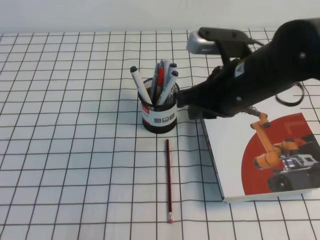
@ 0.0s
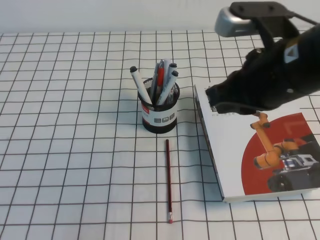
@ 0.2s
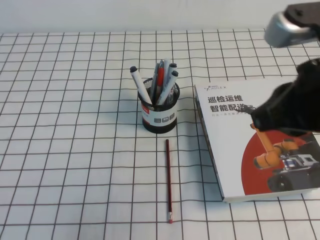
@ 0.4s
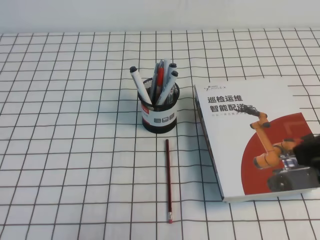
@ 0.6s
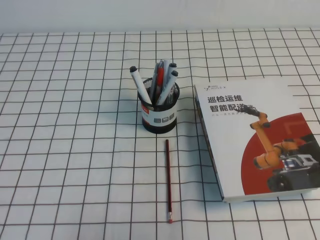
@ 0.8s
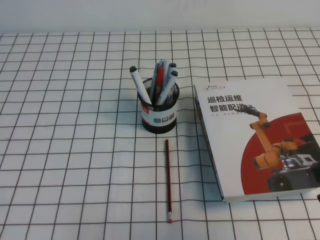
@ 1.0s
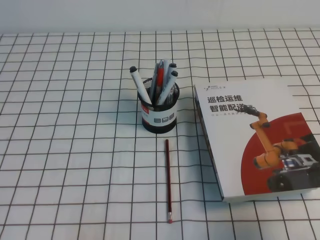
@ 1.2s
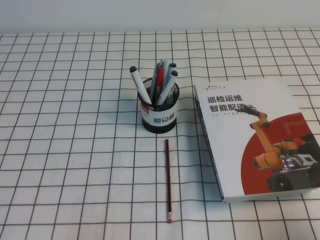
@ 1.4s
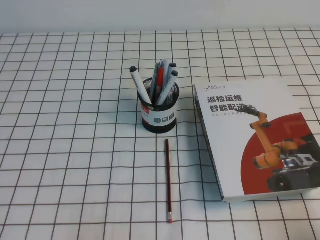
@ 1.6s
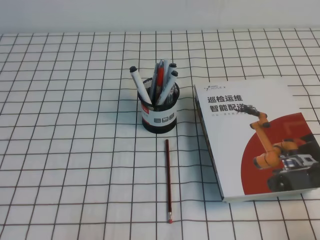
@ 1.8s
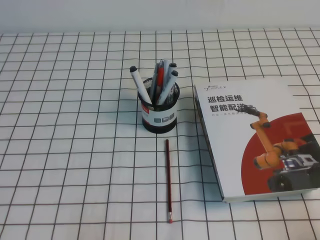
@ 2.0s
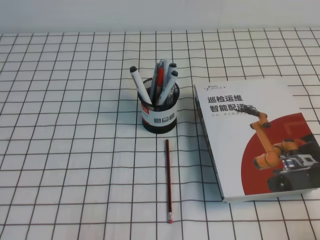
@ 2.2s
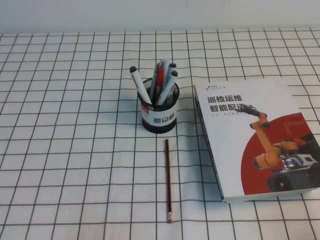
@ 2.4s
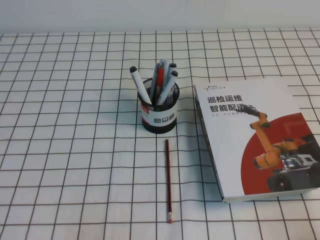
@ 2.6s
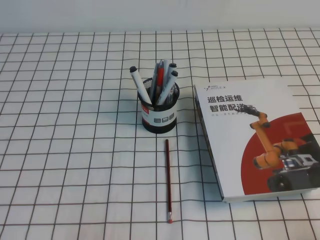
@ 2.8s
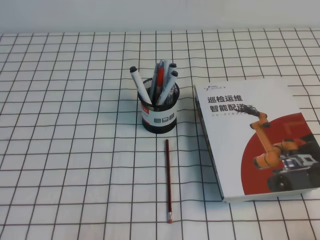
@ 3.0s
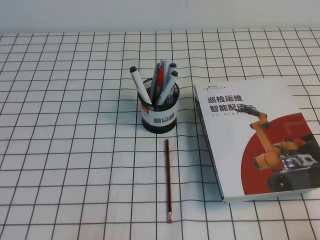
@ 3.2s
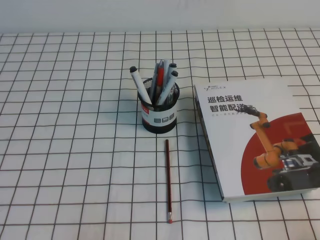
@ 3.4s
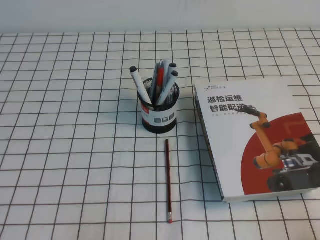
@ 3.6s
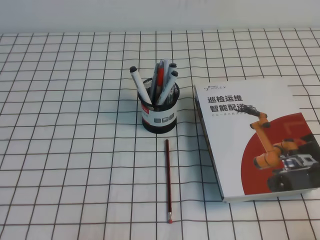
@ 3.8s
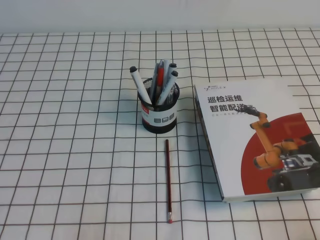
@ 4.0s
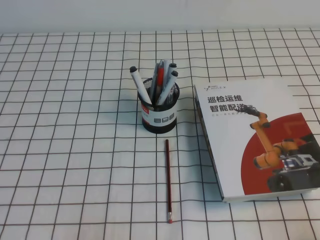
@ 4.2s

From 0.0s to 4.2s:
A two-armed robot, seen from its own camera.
Step, from 0.0s to 4.2s: Pick up the pen from the pen holder.
From 0.0s to 1.4s: The right gripper travels to the right and backward by about 30 cm.
From 1.4s to 2.8s: The right gripper goes some 10 cm downward and backward.
From 2.8s to 4.2s: Both grippers stay put.
